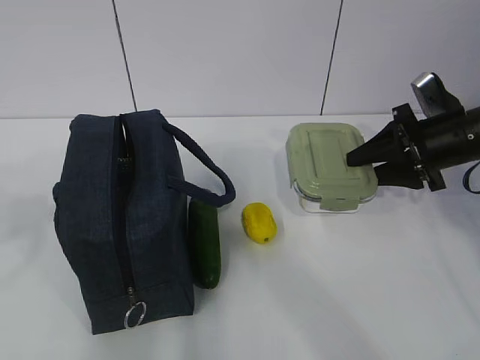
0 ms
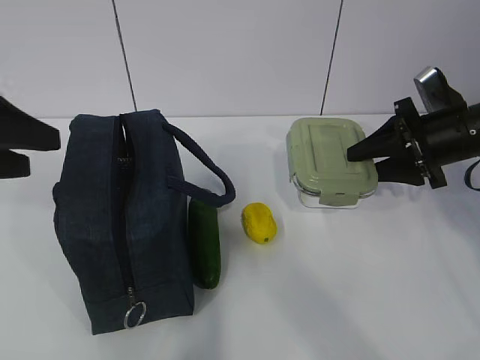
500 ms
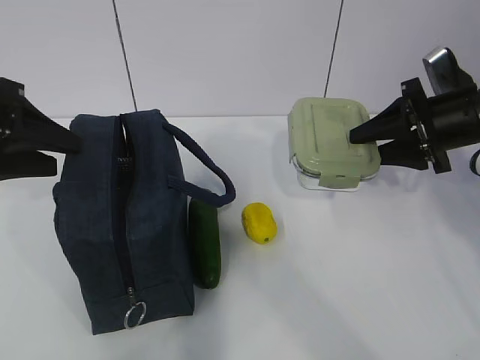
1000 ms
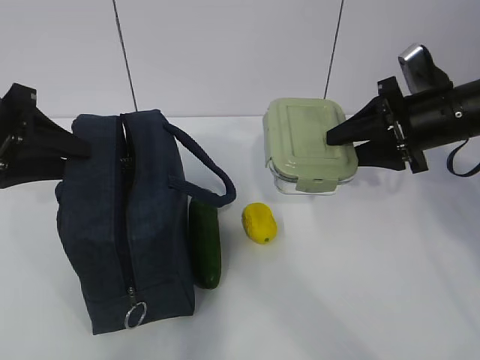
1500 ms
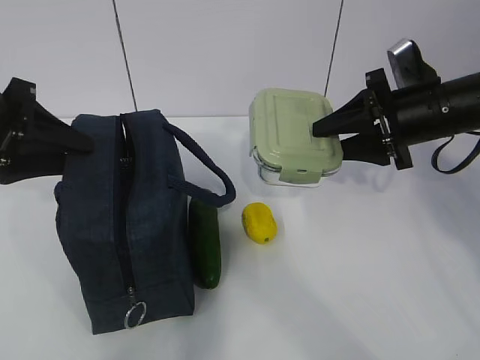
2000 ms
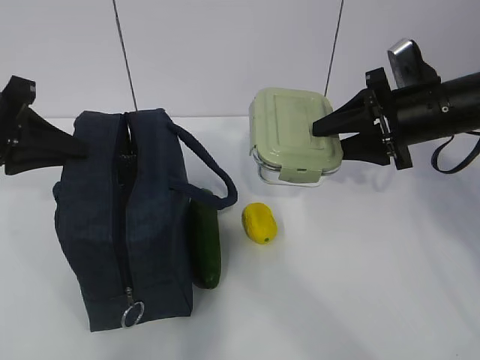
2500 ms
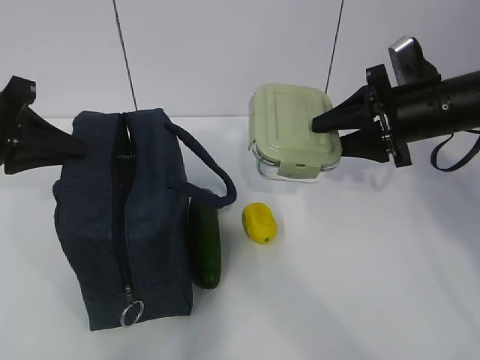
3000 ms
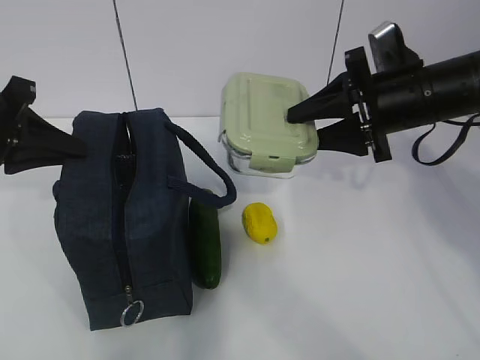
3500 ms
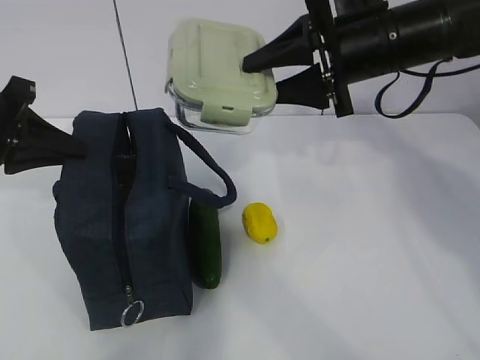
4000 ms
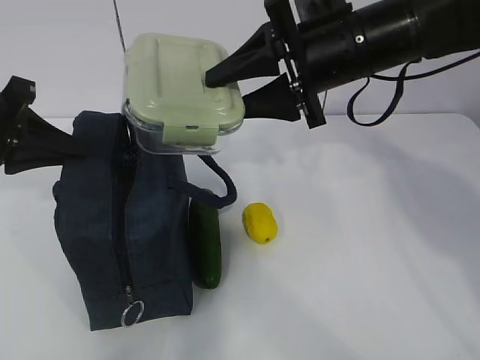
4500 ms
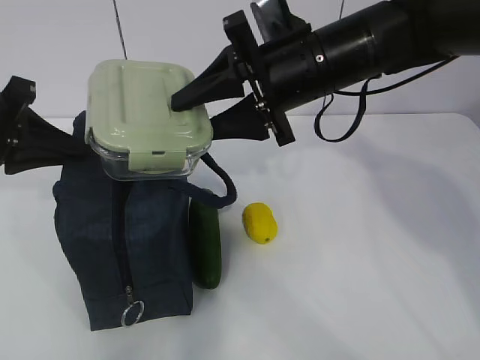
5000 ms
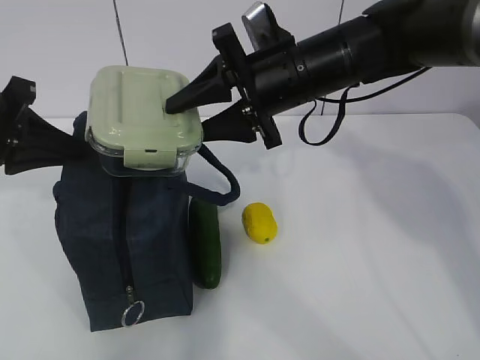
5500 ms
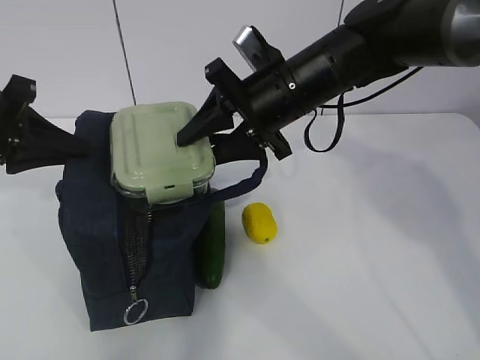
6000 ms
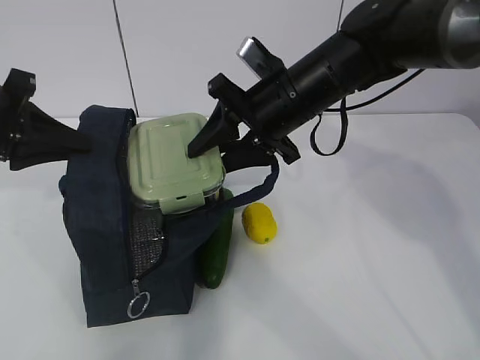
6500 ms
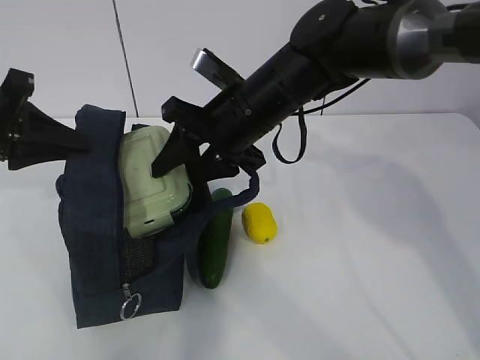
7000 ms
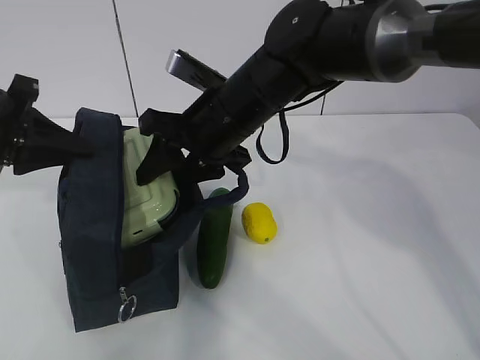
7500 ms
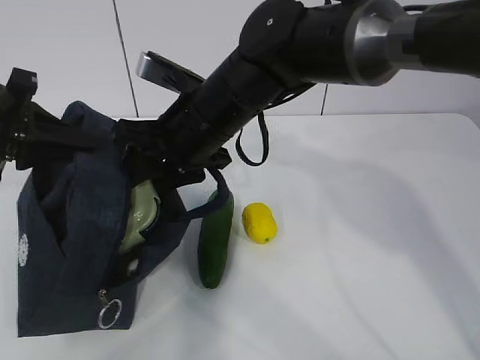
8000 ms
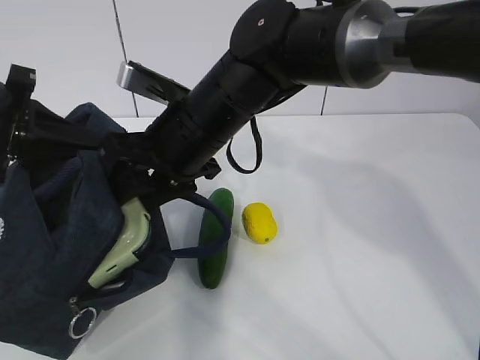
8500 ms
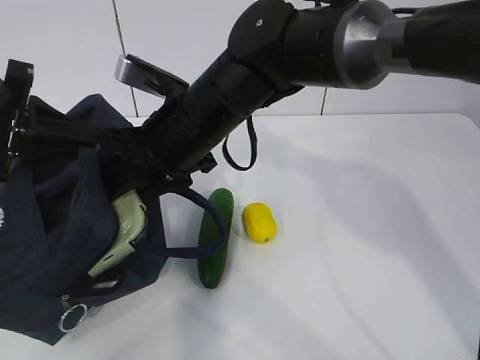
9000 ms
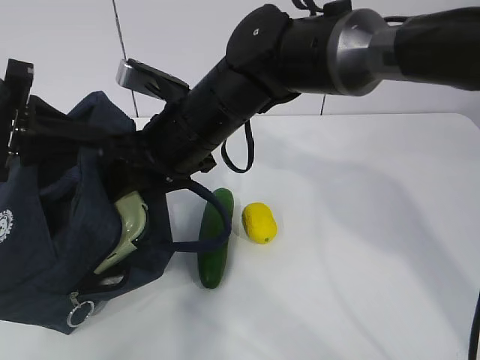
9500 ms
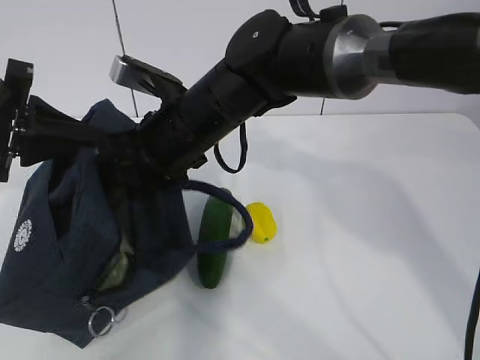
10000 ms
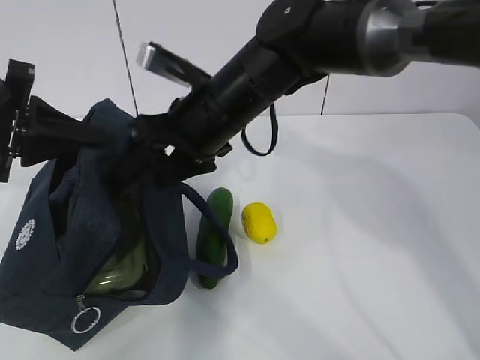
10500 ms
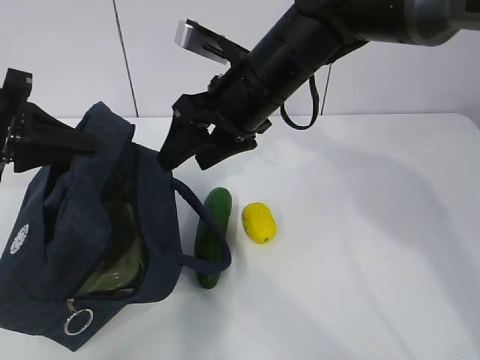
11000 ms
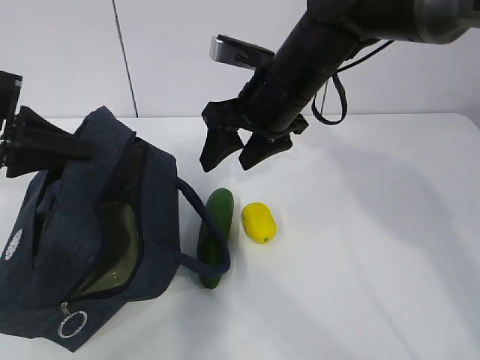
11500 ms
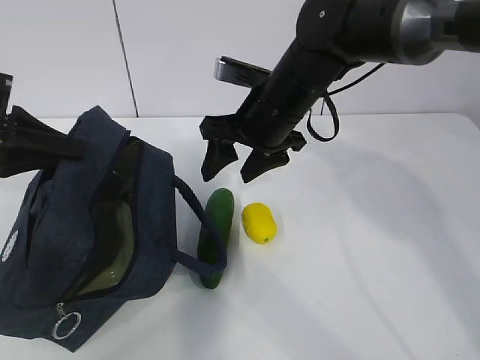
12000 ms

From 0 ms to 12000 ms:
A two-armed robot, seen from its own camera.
Step, from 0 ms to 3000 ms: Place it into the bag with your right hand.
Step, from 3500 ms to 9000 ms: Grab the cucumber with your right hand.
Step, from 9500 ms to 12000 ms: Place it into the bag with your right hand.
From 0 ms to 2000 ms: The left gripper shifts roughly 20 cm forward and downward. The right gripper moves approximately 5 cm.
From 2000 ms to 4000 ms: The left gripper closes. The right gripper moves to the left and upward, some 10 cm.
From 4000 ms to 6000 ms: The right gripper travels to the left by approximately 10 cm.
From 6000 ms to 8000 ms: The right gripper shifts roughly 10 cm to the left.
From 8000 ms to 10000 ms: The grippers move only a little.
From 10000 ms to 12000 ms: The right gripper moves to the right, roughly 10 cm.

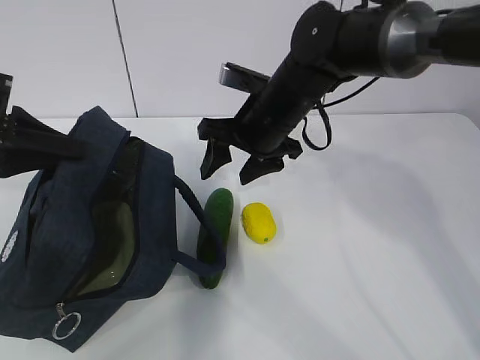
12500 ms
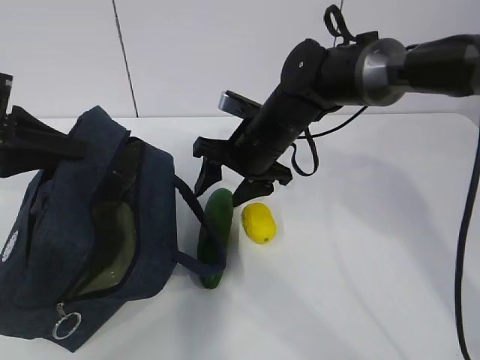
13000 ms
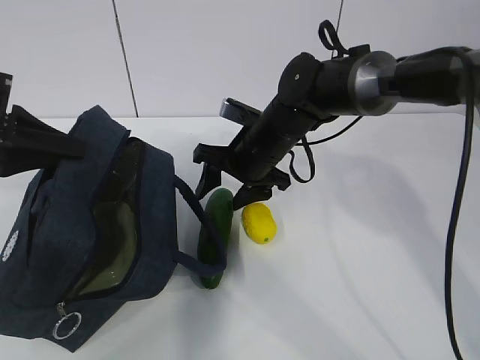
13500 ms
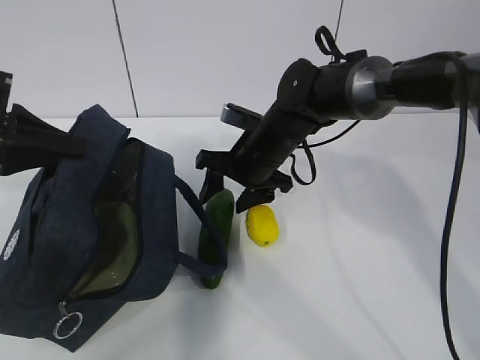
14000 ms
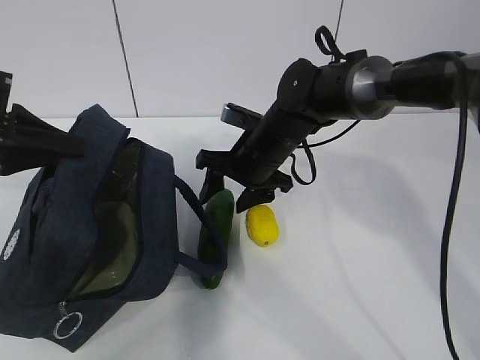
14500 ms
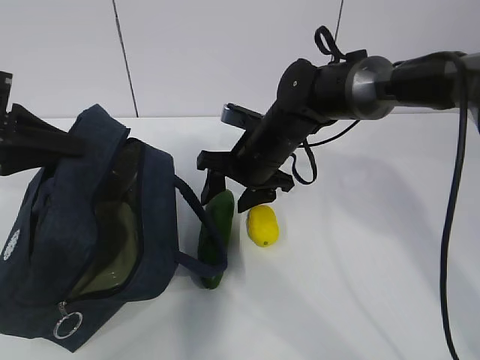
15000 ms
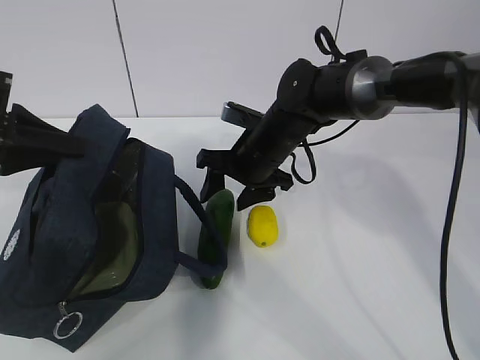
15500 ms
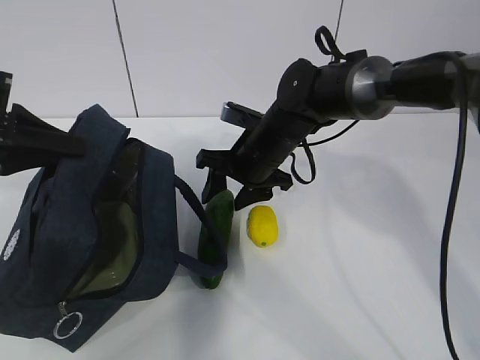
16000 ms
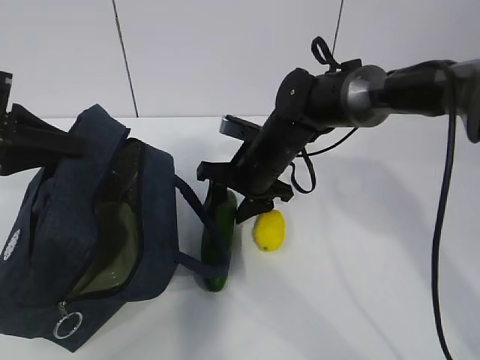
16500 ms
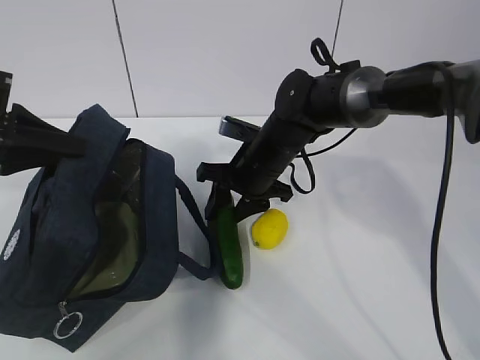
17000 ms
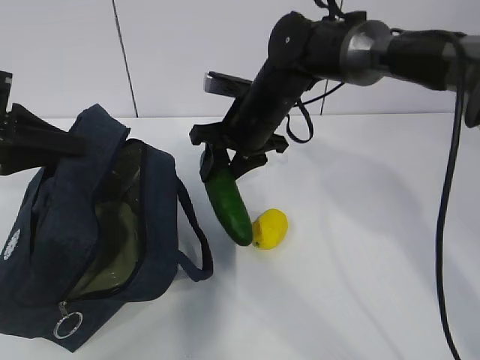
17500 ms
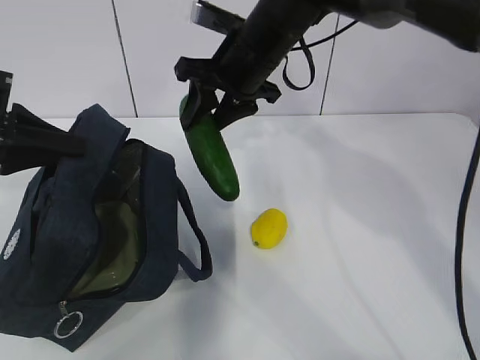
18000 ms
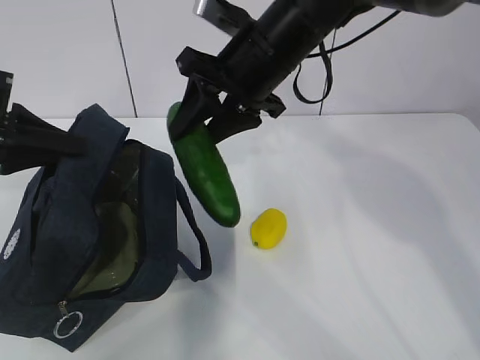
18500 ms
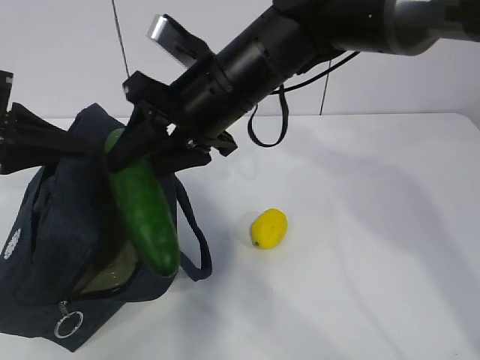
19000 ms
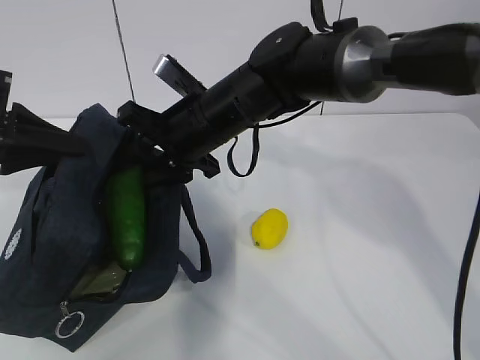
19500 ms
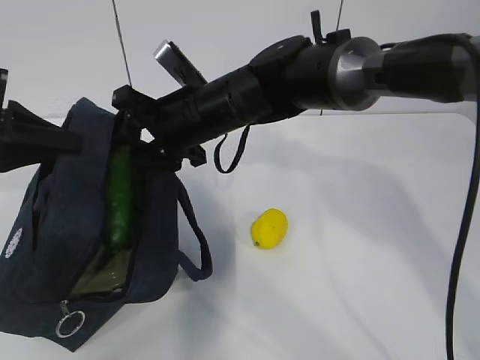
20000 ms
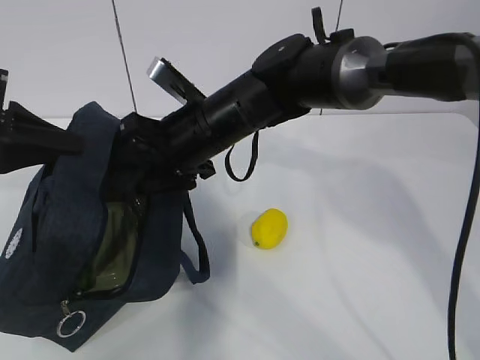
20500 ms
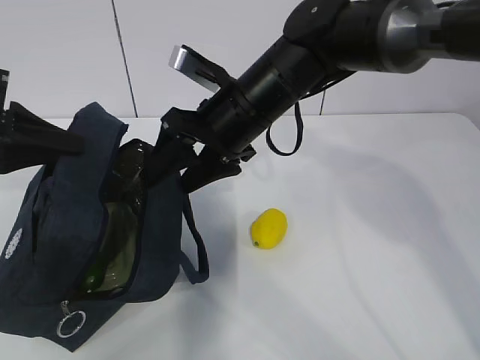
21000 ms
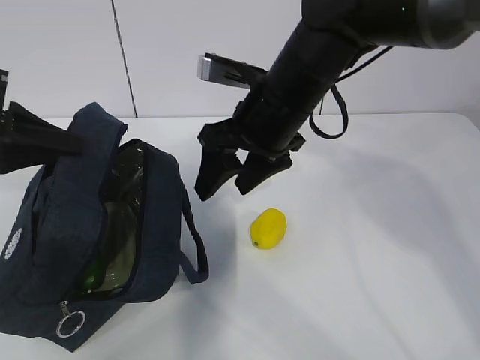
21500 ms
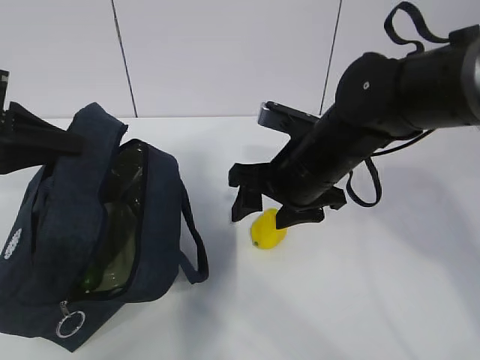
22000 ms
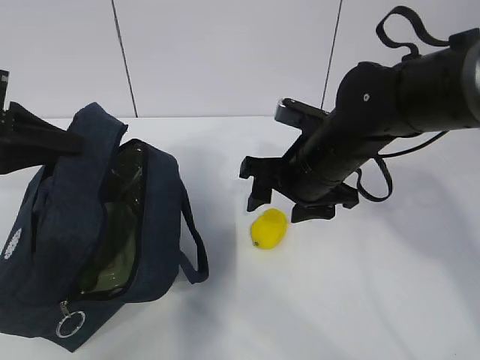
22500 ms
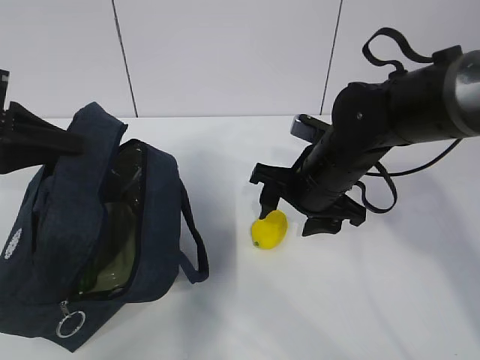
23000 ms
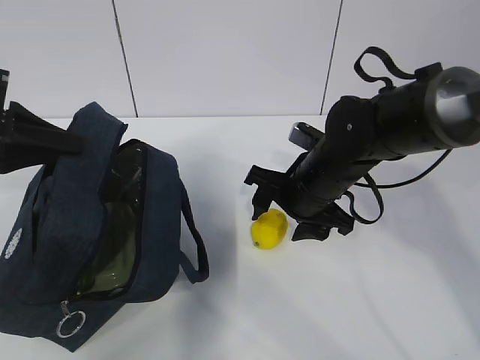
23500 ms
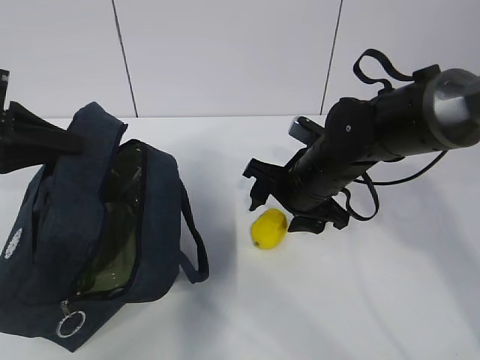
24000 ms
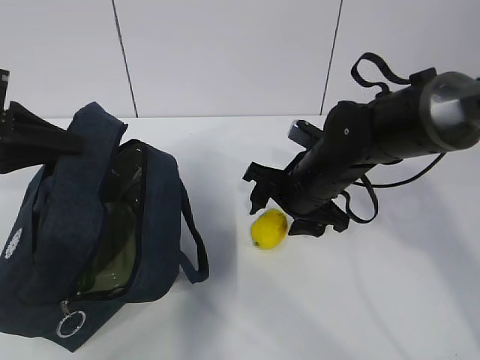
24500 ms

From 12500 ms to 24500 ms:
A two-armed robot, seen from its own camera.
Step, from 12500 ms to 16000 ms: Grab the lemon with your right hand.
Step, from 19000 ms to 22000 ms: Grab the lunch bag with your right hand.
From 12500 ms to 14500 ms: The right gripper travels downward by roughly 5 cm.
From 14500 ms to 16500 ms: The two grippers keep their place.
From 16500 ms to 18500 ms: The right gripper travels upward by approximately 15 cm.
From 18500 ms to 20500 ms: The right gripper heads downward and to the left, covering about 10 cm, and opens up.
From 20500 ms to 22500 ms: The right gripper heads to the right, covering roughly 10 cm.
From 22500 ms to 24500 ms: The grippers make only small movements.

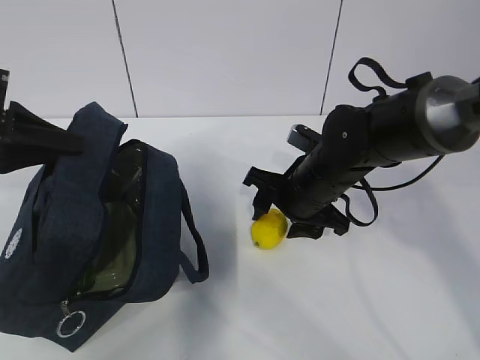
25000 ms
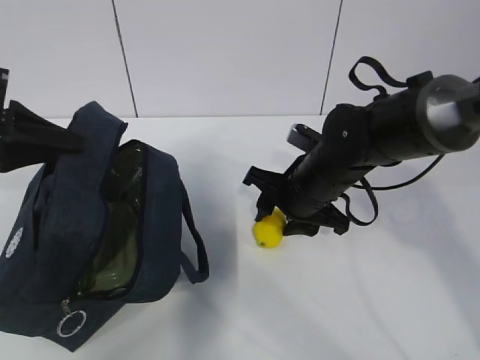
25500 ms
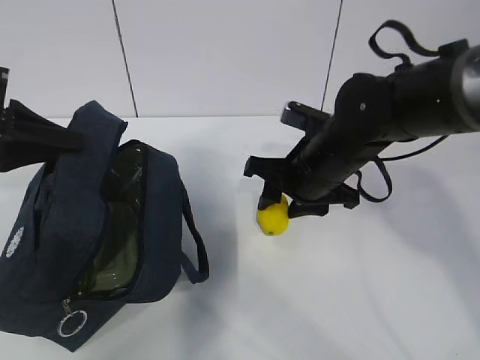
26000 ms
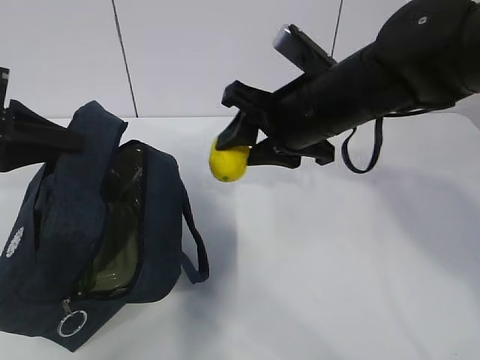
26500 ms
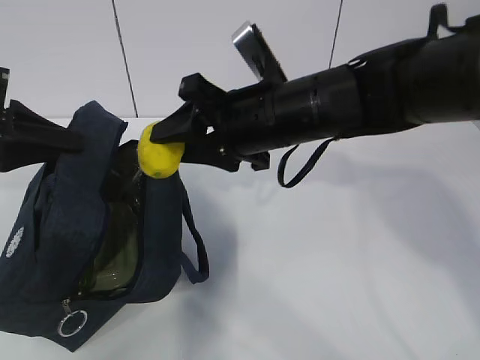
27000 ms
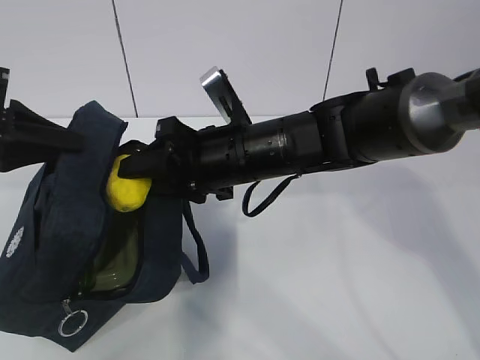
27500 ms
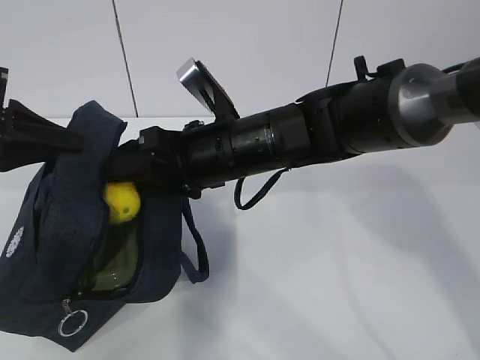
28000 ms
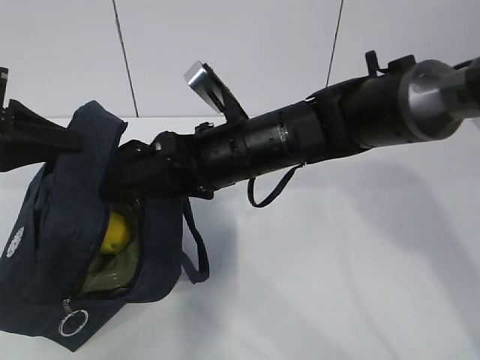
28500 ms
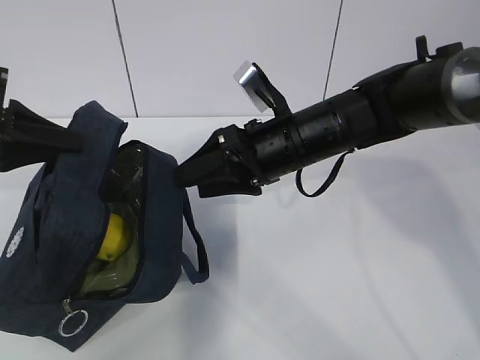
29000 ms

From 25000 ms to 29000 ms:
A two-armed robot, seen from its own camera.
From 25000 ms to 27000 ms: The right gripper goes about 10 cm upward and to the left.
From 27000 ms to 29000 ms: The right gripper ends up about 5 cm from where it was.
